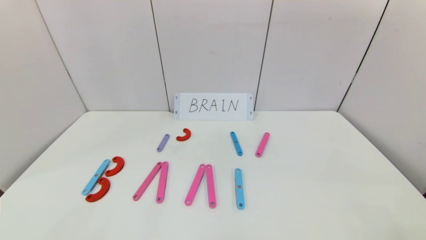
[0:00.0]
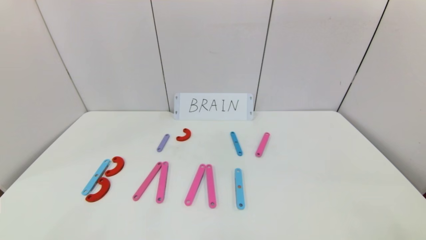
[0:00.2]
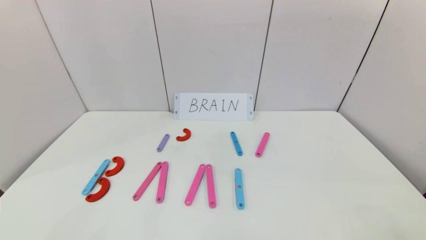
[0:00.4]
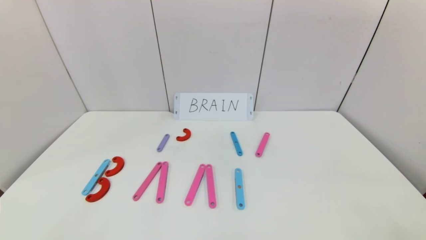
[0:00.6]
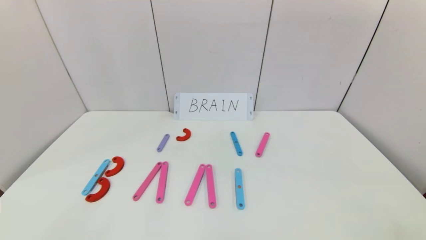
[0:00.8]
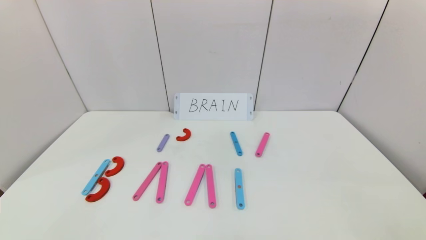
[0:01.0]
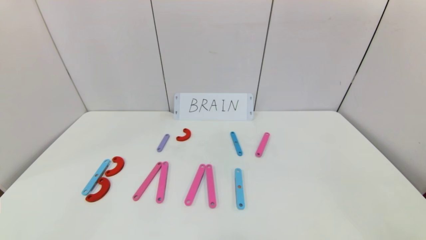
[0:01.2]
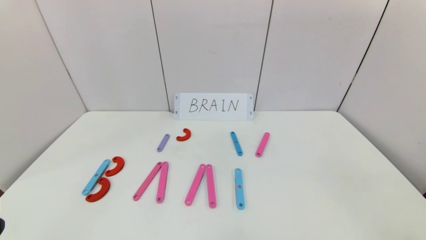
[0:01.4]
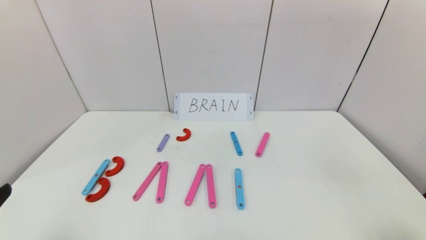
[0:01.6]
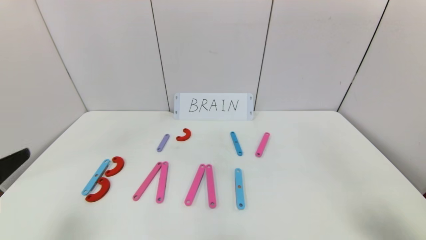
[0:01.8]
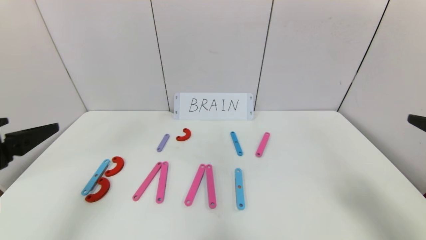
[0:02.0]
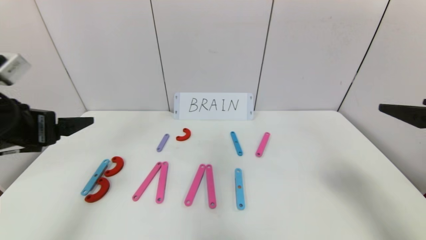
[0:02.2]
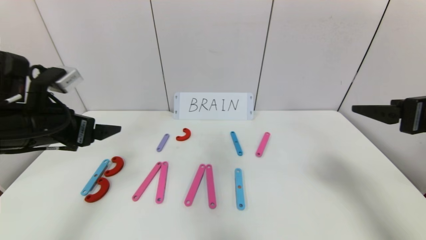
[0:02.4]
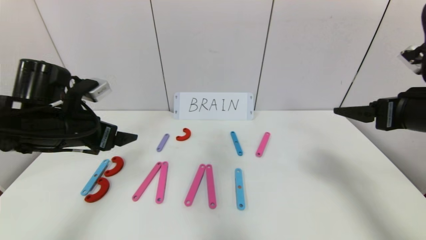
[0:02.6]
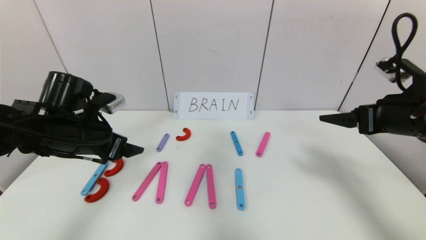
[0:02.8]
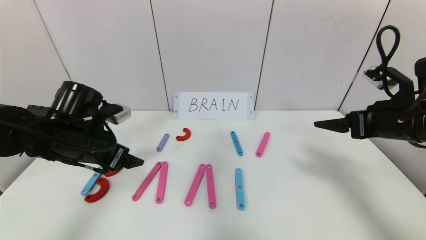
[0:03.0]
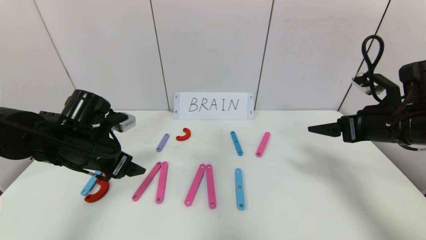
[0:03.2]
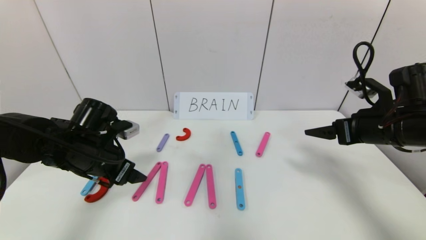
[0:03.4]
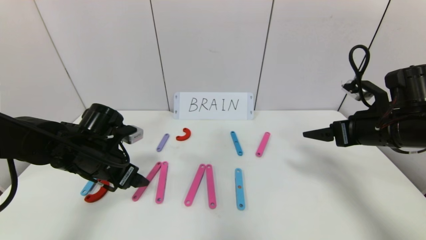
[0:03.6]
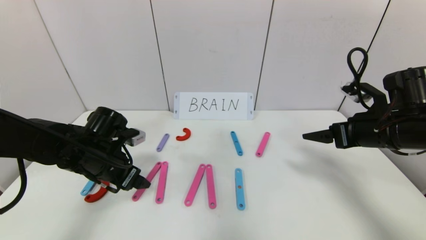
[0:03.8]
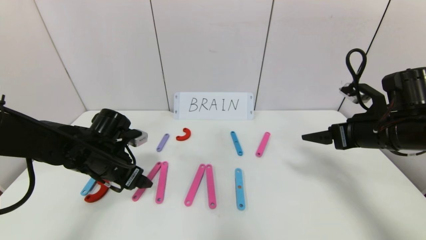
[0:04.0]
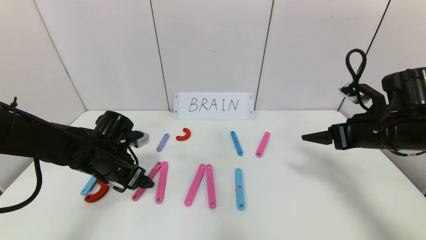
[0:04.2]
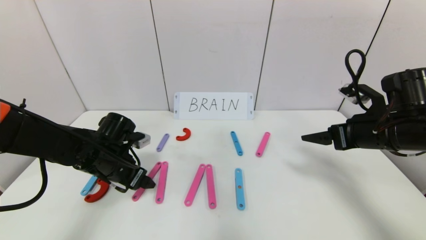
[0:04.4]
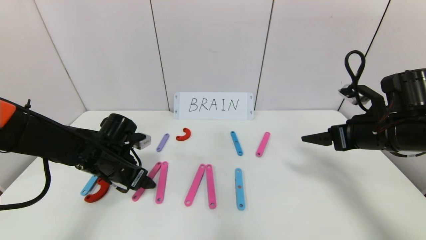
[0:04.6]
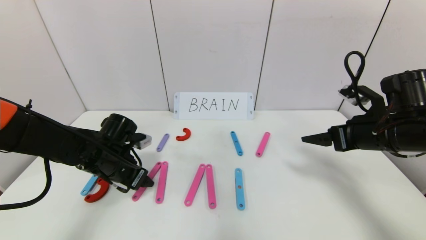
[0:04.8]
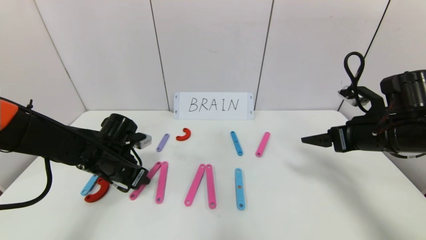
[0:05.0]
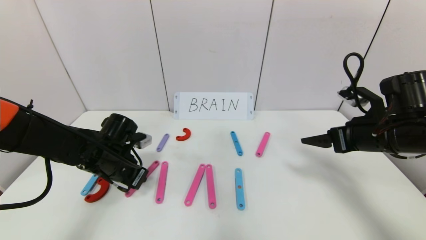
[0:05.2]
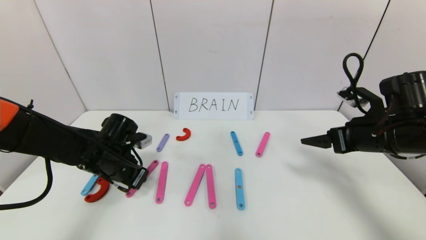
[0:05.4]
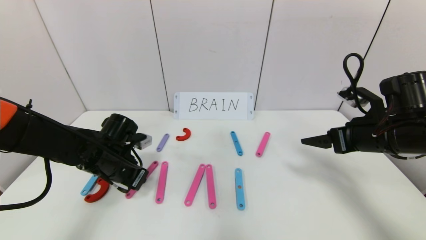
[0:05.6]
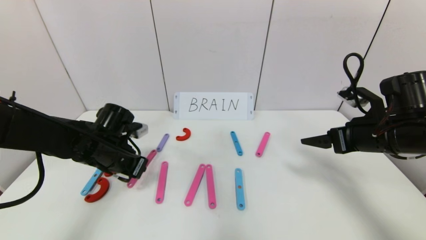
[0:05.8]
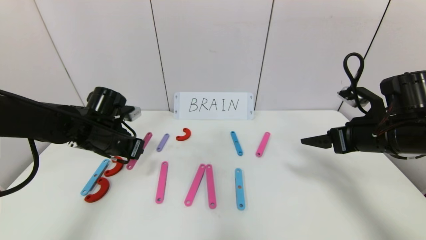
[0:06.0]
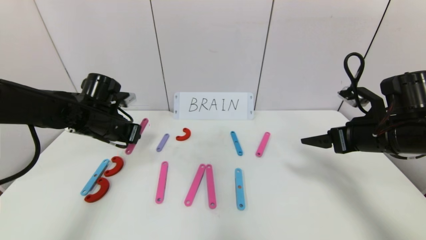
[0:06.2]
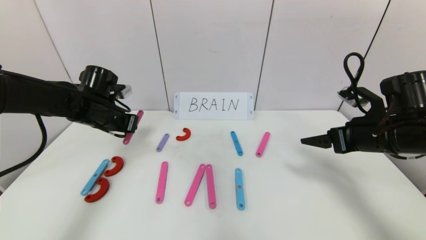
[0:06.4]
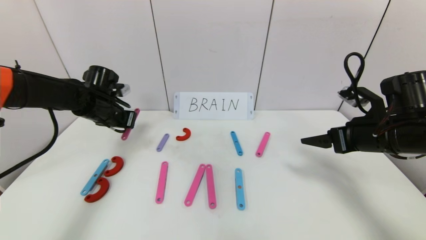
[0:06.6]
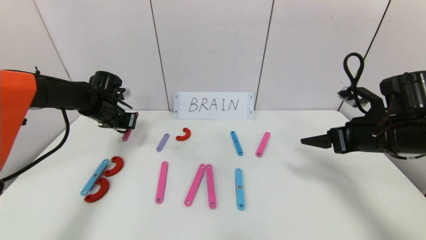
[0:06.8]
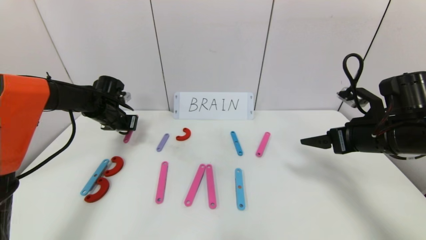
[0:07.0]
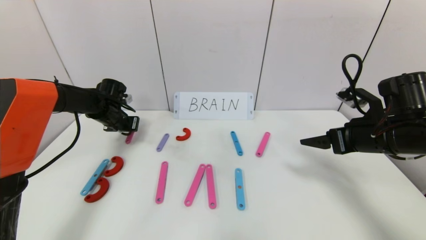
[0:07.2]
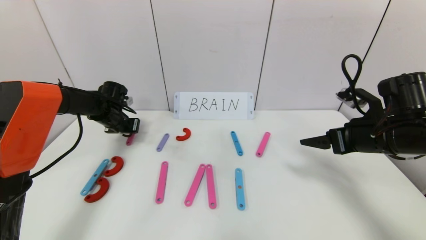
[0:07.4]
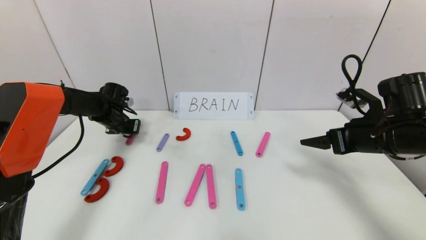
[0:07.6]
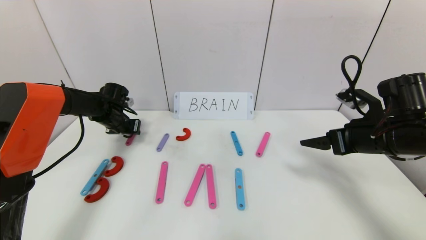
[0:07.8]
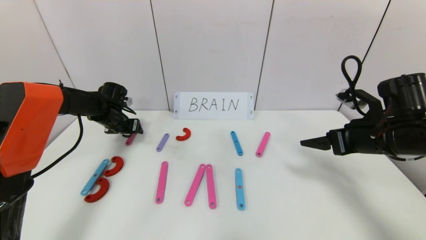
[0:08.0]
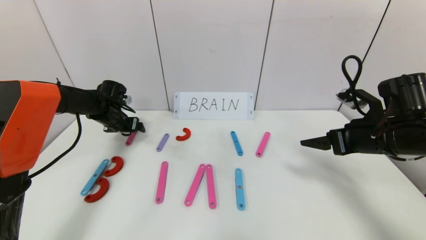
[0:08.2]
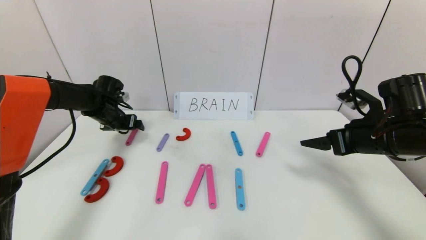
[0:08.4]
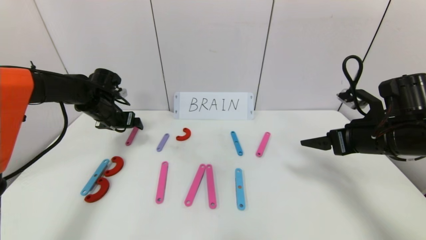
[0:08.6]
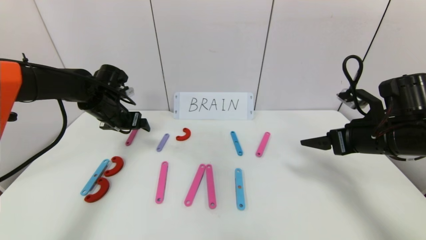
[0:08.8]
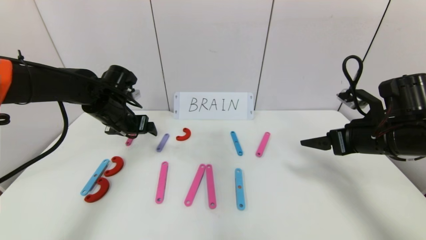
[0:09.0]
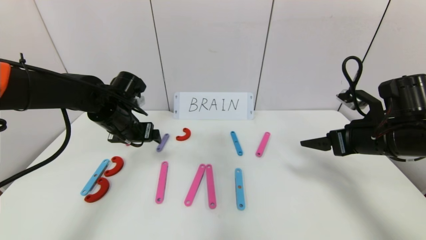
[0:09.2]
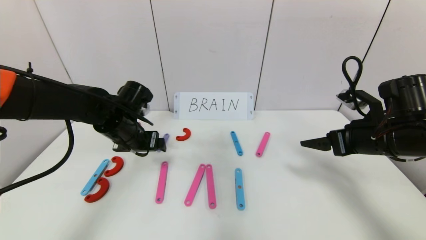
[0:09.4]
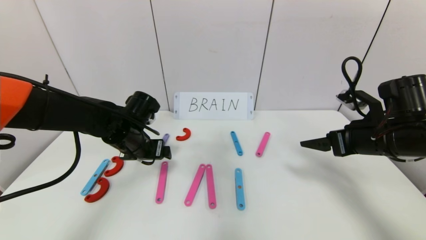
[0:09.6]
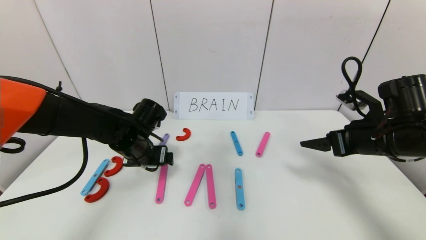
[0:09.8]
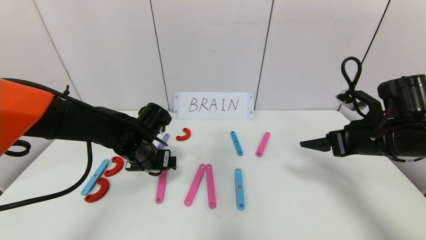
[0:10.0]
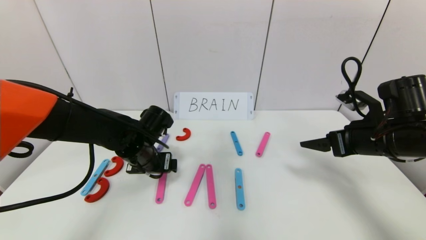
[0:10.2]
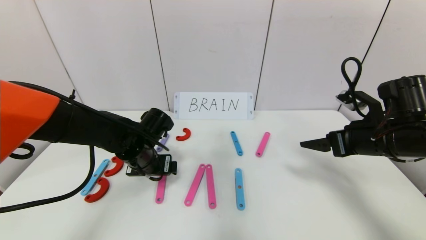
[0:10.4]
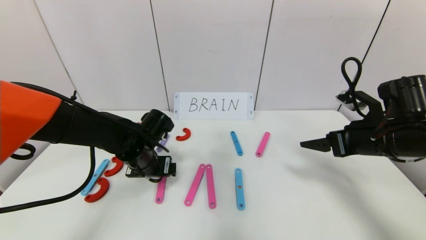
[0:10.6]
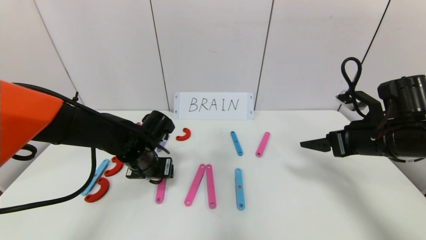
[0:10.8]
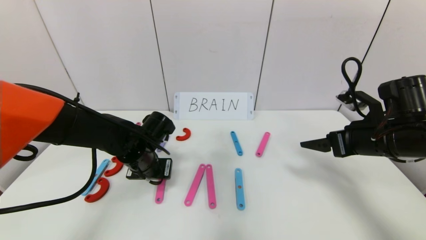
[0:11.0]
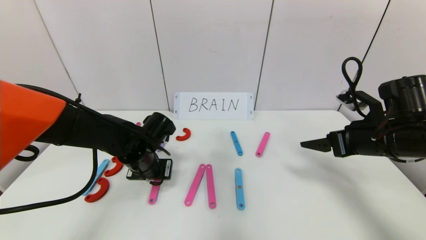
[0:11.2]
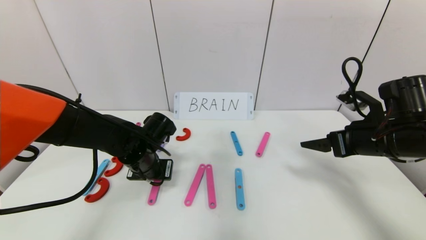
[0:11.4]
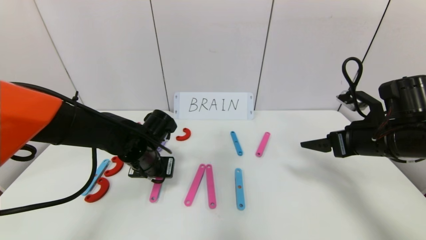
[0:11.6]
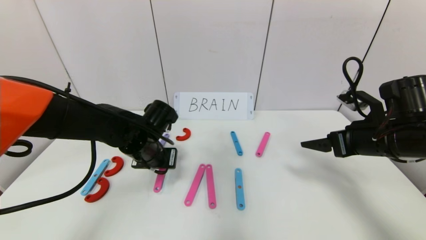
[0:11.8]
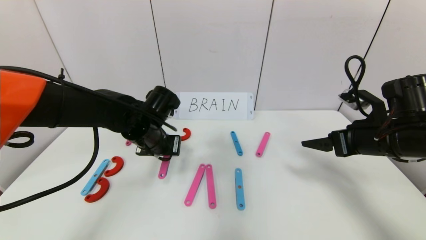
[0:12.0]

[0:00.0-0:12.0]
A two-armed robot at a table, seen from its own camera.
Task of the whole recording: rearrange the word baai as brain.
0:01.6 to 0:03.0: Both grippers move forward, approximately 25 cm.
0:03.0 to 0:04.4: The left gripper moves downward, some 10 cm.
0:04.4 to 0:06.0: The left gripper shifts by approximately 5 cm, and closes.
0:06.0 to 0:07.6: The left gripper travels forward and to the left by approximately 15 cm.
0:07.6 to 0:09.0: The left gripper heads backward, upward and to the right, covering roughly 15 cm, and opens its fingers.
0:09.0 to 0:10.4: The left gripper moves to the right, downward and backward, about 10 cm.
0:10.4 to 0:12.0: The left gripper ends up roughly 5 cm from where it was, and closes up.

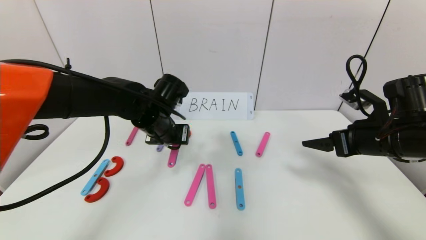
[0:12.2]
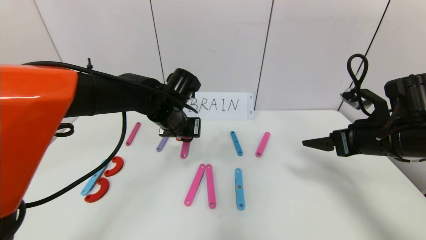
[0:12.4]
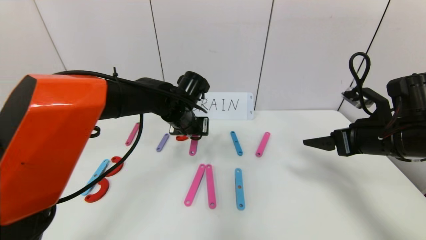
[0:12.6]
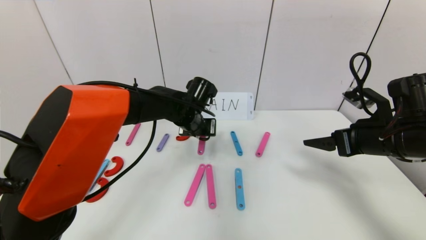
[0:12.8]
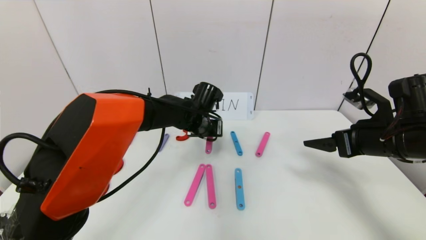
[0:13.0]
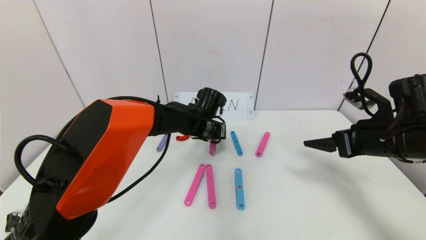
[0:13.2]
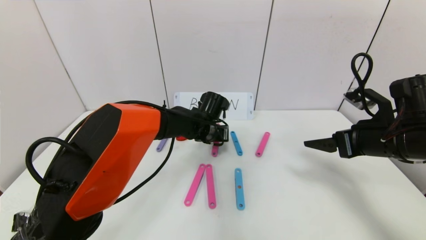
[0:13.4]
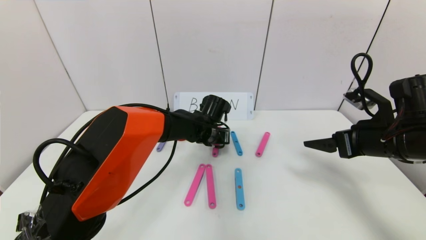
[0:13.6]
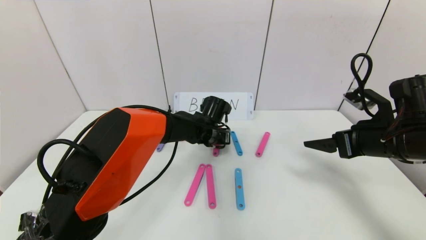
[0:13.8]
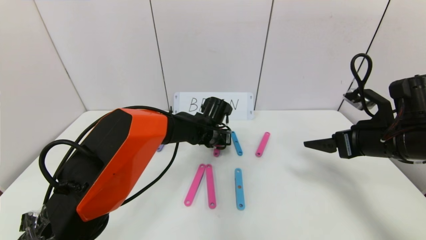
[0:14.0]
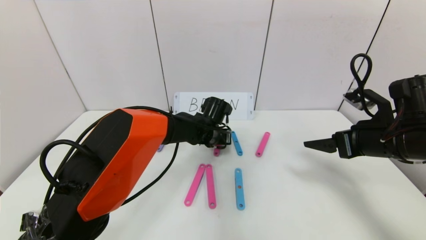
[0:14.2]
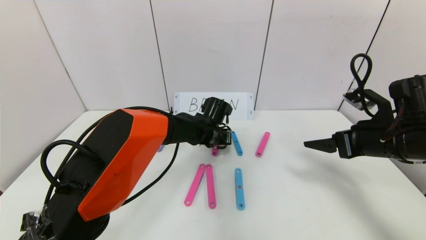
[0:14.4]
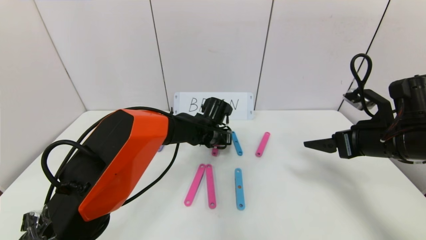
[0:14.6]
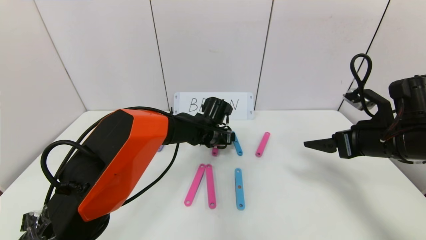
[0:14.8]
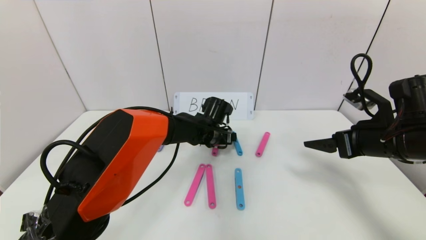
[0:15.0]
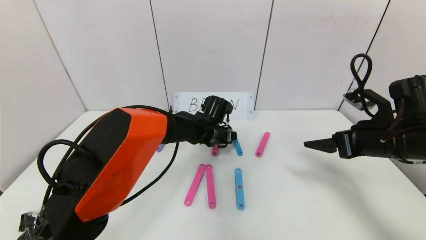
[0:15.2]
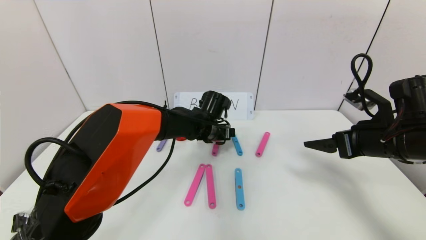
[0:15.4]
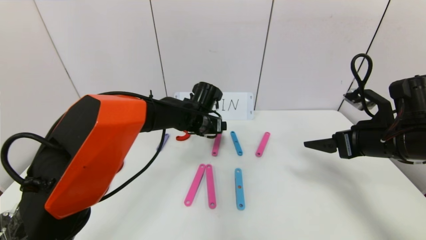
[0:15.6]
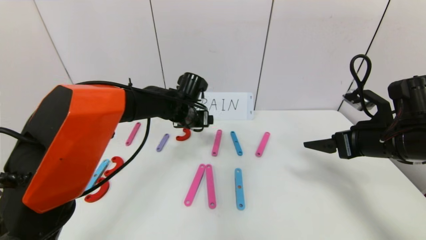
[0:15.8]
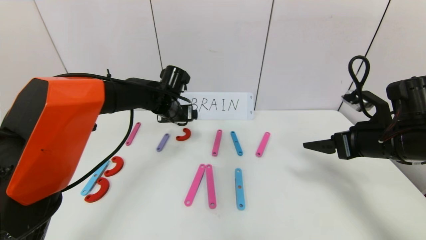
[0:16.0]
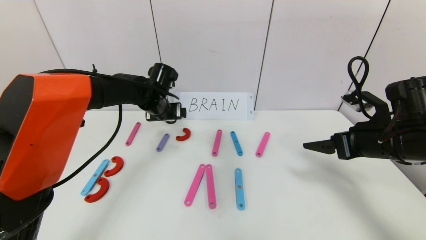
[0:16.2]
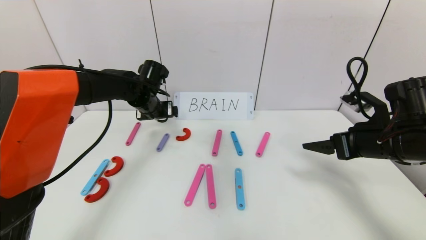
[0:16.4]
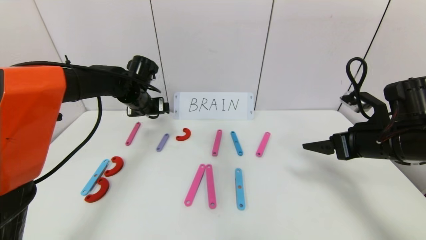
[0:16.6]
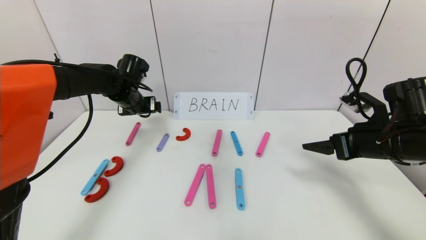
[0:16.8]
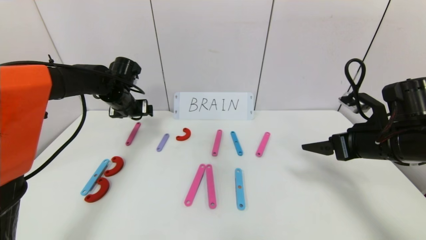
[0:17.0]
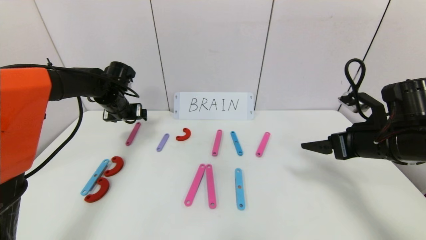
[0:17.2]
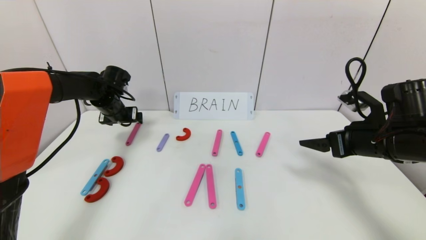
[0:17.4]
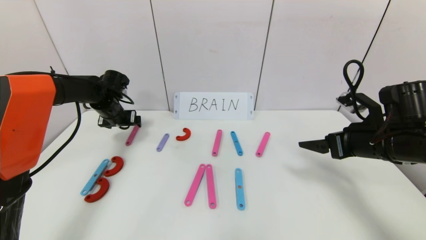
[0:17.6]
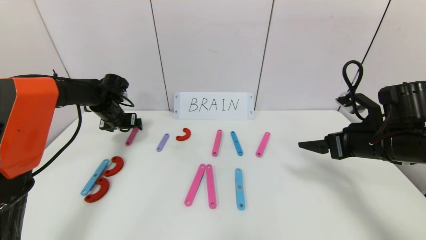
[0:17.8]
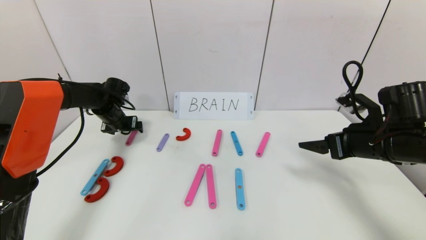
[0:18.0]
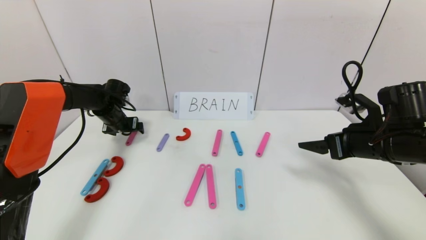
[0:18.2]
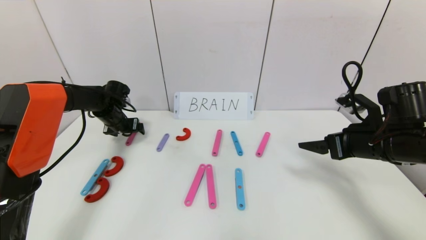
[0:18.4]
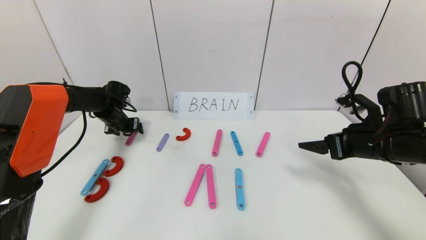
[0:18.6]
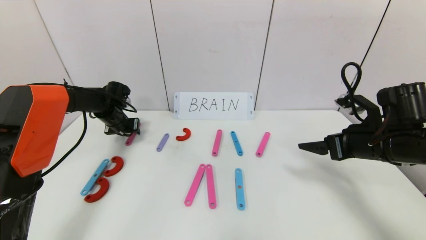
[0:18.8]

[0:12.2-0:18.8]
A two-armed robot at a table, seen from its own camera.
Task of the whole recording: rearrange the word baai as brain.
Step, 0:12.2 to 0:15.6: Disassemble the second character A.
0:12.2 to 0:13.8: The left gripper travels to the right, downward and forward by roughly 15 cm.
0:13.8 to 0:15.4: The left gripper opens up.
0:15.4 to 0:17.2: The left gripper goes approximately 25 cm to the left.
0:17.2 to 0:18.8: The left gripper shifts about 5 cm downward, and closes up.
